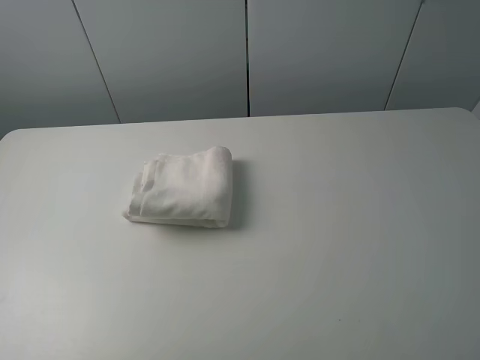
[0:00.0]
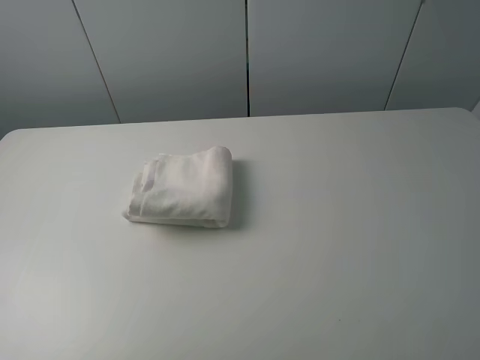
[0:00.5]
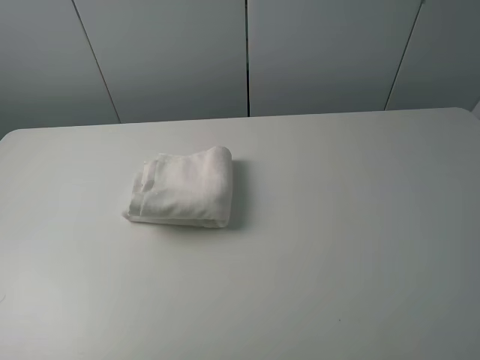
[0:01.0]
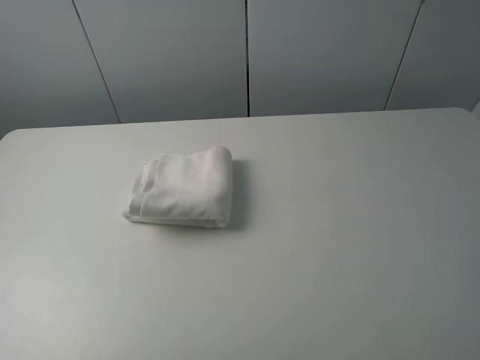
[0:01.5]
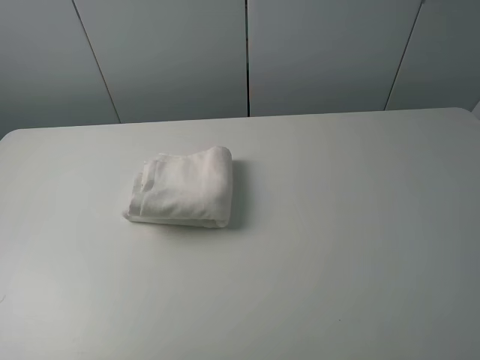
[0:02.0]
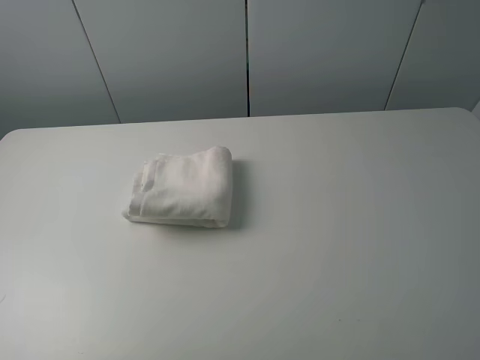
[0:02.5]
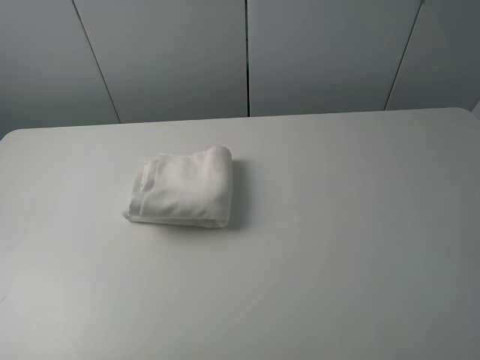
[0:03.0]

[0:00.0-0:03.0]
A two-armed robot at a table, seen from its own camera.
Task of the whole recording: fold the towels on the table.
0:00.0 to 0:03.0: The two grippers keep their place.

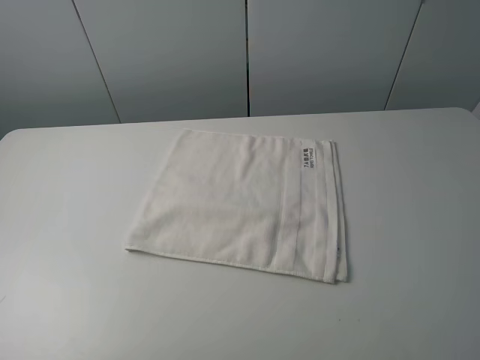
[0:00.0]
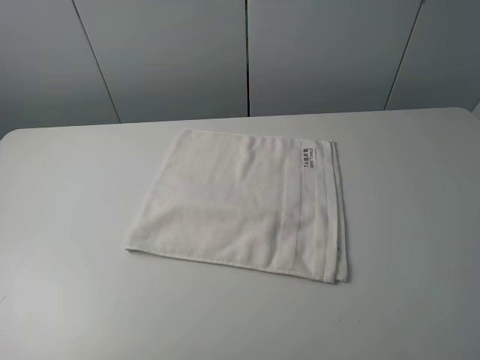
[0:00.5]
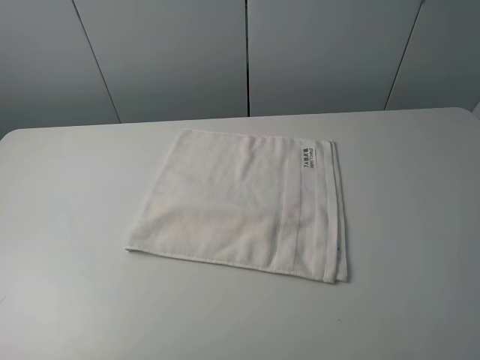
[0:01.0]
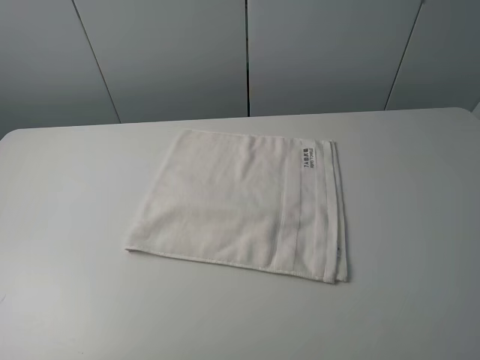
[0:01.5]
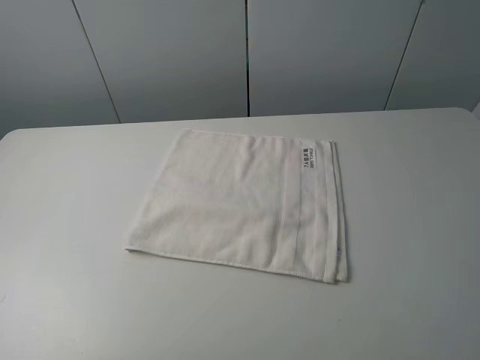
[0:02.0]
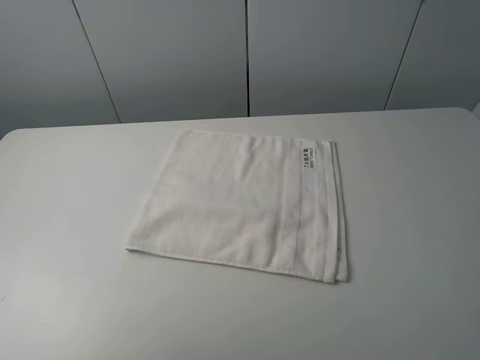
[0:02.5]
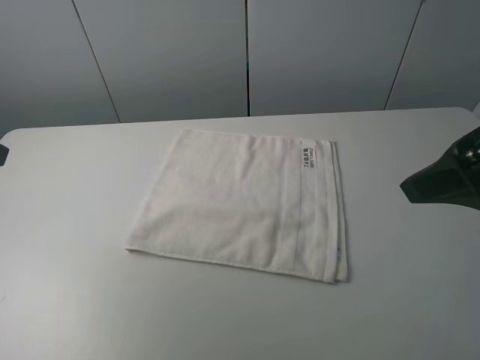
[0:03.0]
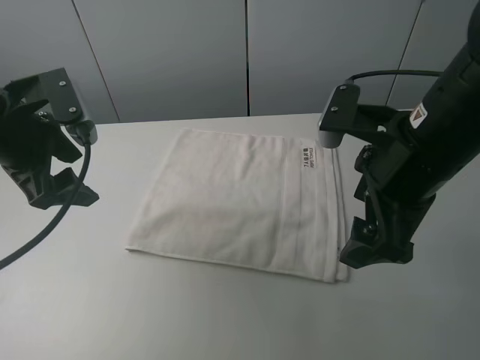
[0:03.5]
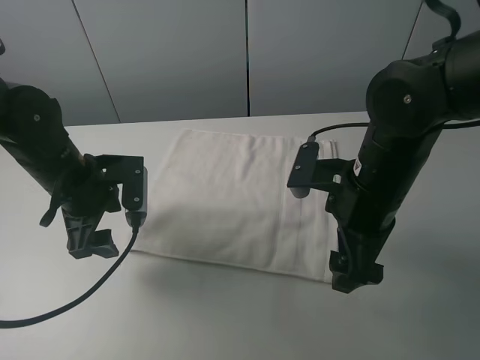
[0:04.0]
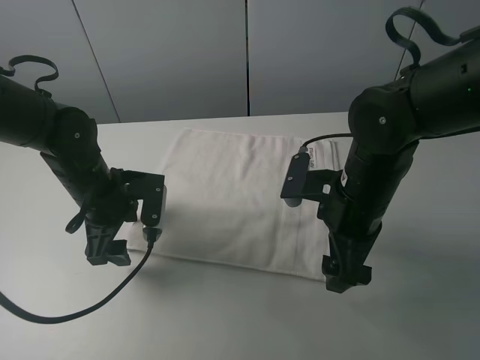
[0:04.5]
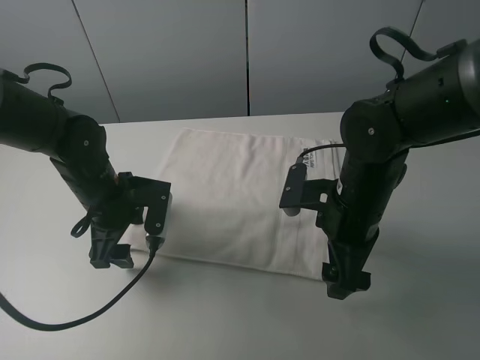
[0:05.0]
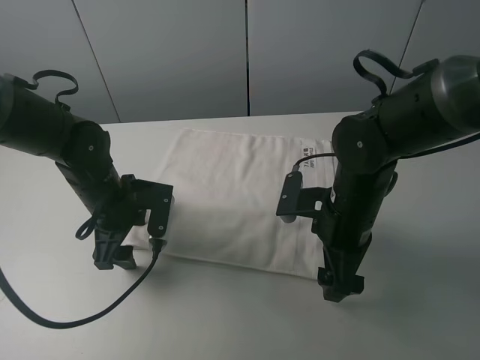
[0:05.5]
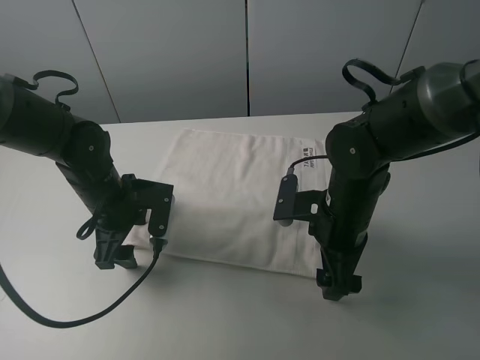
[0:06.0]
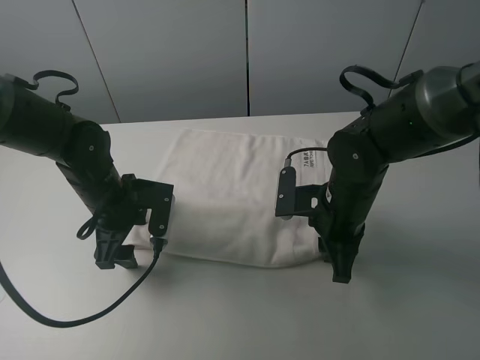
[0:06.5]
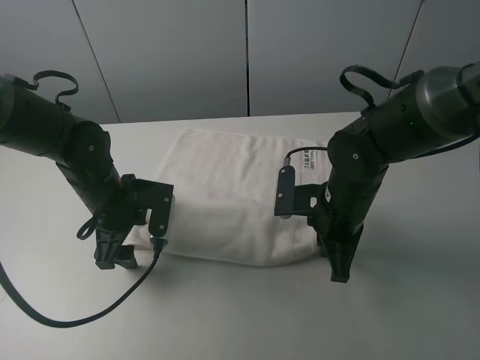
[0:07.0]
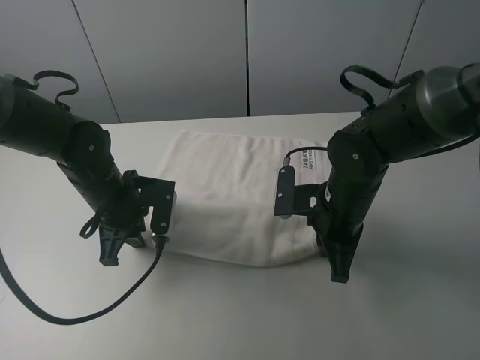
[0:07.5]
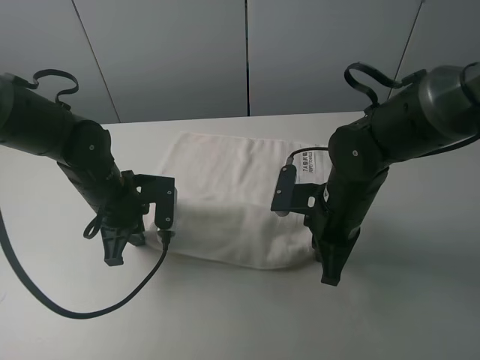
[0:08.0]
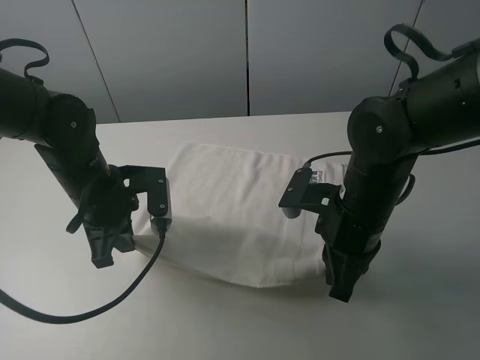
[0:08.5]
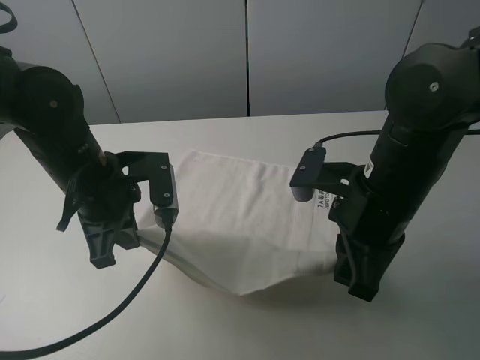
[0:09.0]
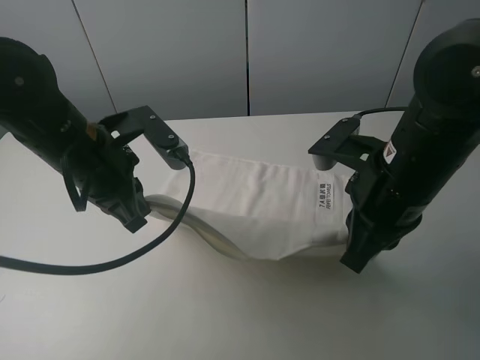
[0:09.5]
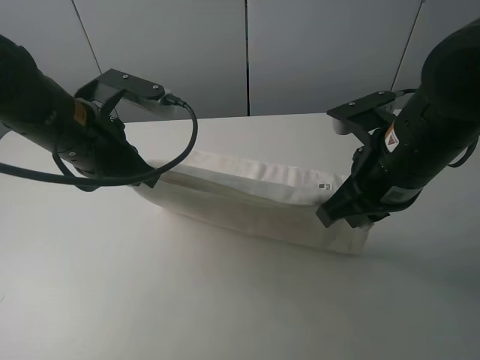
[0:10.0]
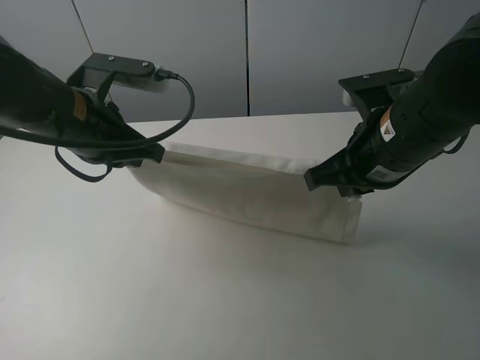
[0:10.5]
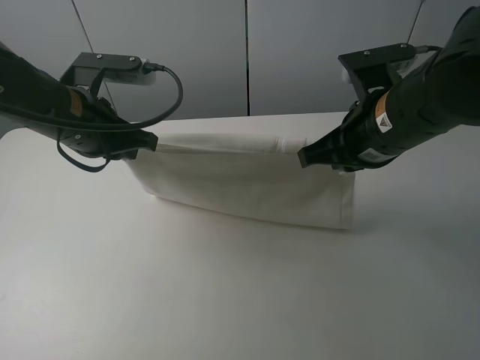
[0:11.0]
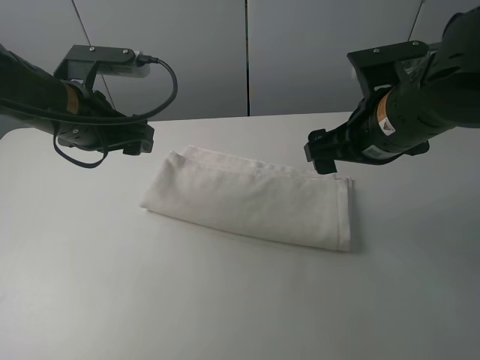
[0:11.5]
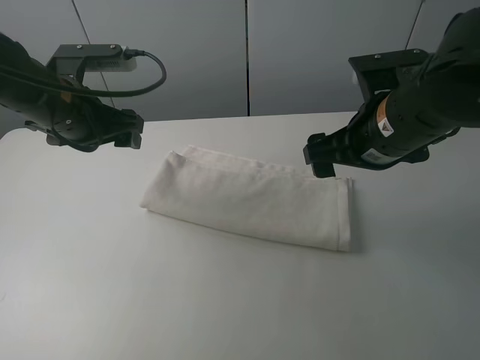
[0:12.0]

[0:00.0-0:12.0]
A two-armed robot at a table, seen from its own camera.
Task of the whole recording: fold the towels on the table.
Step, 0:00.0 to 0:06.5: Grasp the white towel with the right gripper.
Step, 0:07.0 to 0:07.5: Grasp the white towel with the left gripper.
Step, 0:08.0 to 0:11.0: Fold the white towel upwards with the right gripper.
0:02.0 to 0:04.0: The left gripper goes approximately 35 cm forward, to the right and downward. Meanwhile the right gripper goes approximately 30 cm forward, to the left and downward.
0:04.0 to 0:06.0: The left gripper moves roughly 5 cm; the right gripper is displaced downward by approximately 5 cm.
0:06.0 to 0:08.0: The left gripper closes up; the right gripper closes.
0:08.0 to 0:10.0: The two grippers go roughly 10 cm upward.
0:10.0 to 0:12.0: The left gripper is displaced forward by some 5 cm, and opens up; the right gripper opens its fingers.

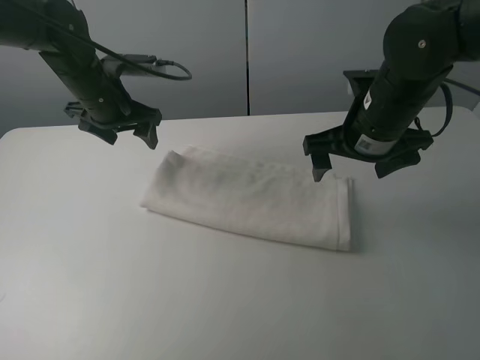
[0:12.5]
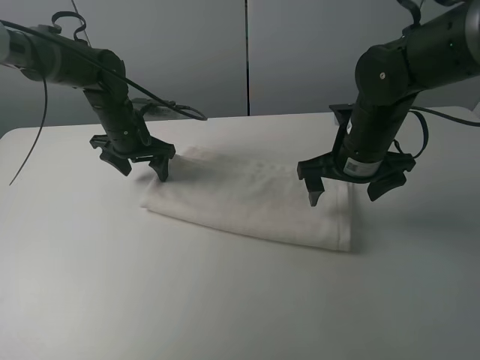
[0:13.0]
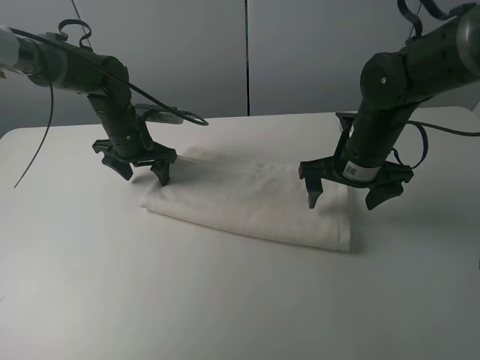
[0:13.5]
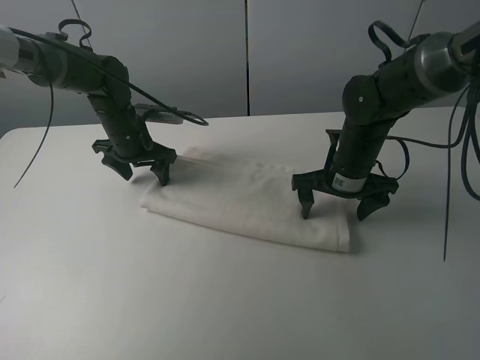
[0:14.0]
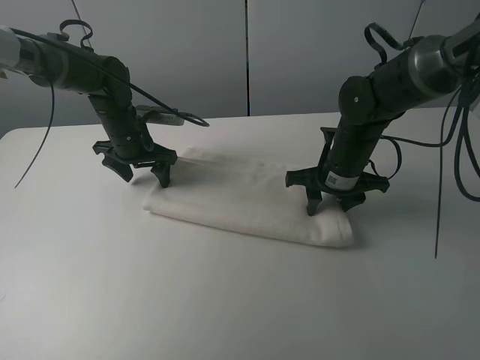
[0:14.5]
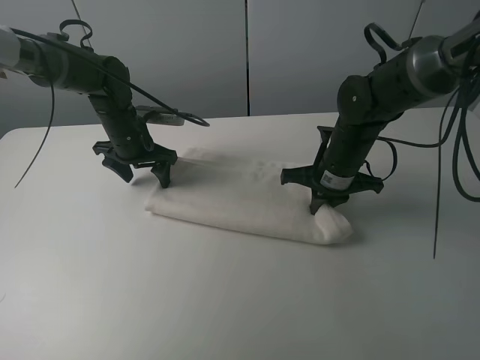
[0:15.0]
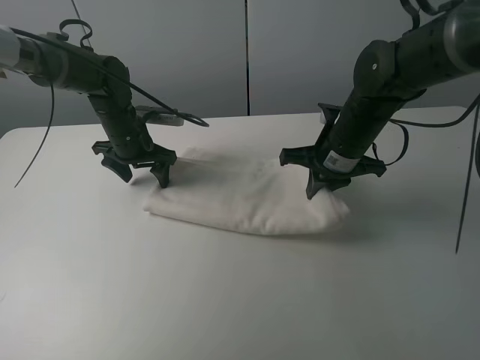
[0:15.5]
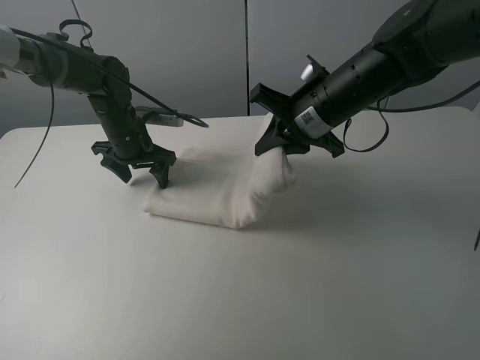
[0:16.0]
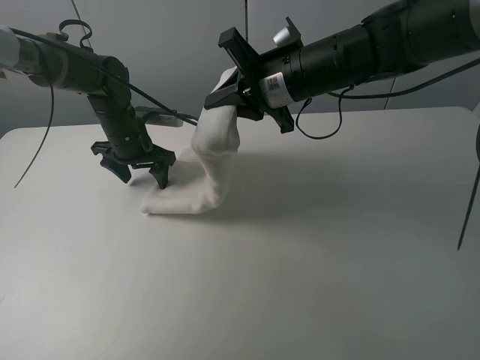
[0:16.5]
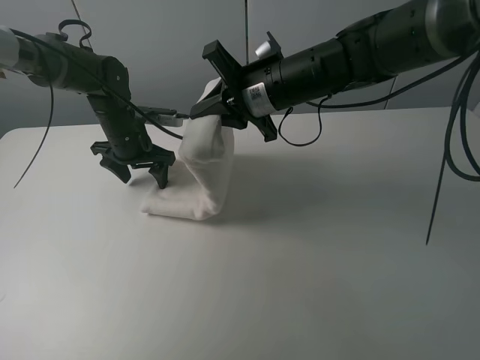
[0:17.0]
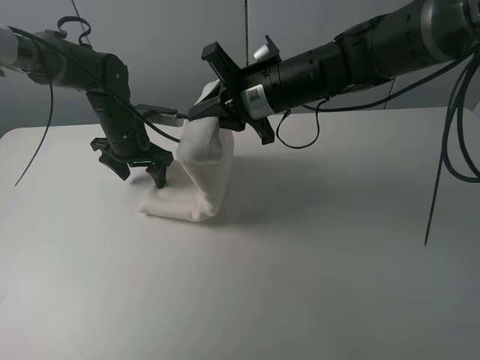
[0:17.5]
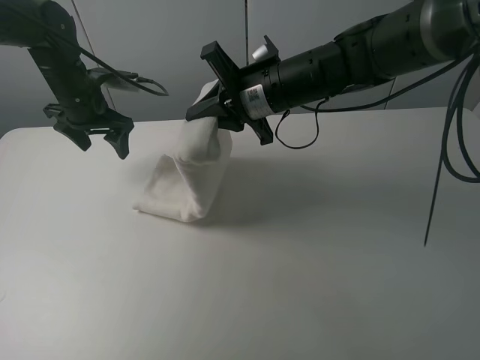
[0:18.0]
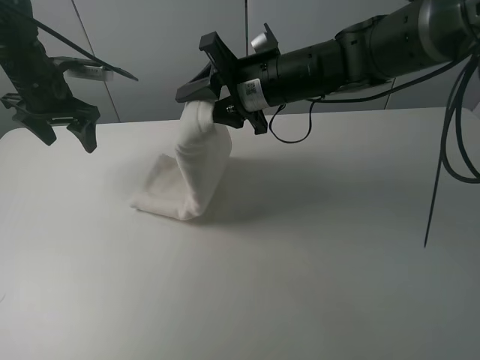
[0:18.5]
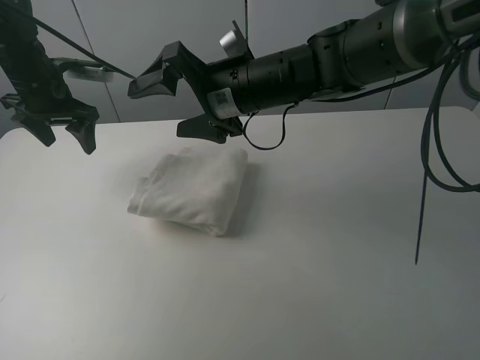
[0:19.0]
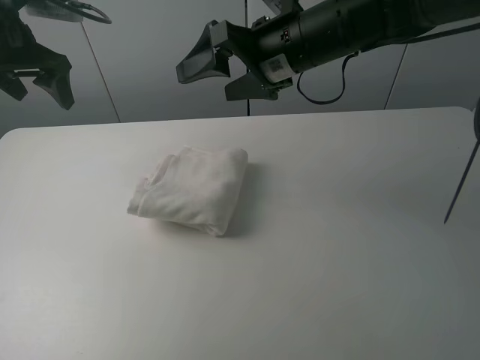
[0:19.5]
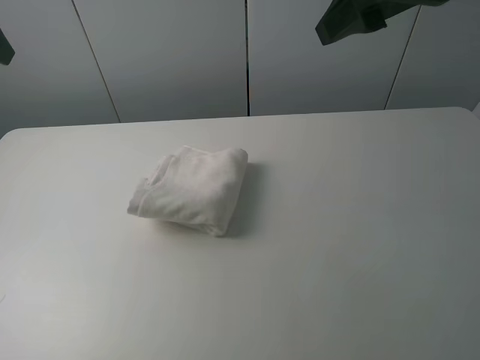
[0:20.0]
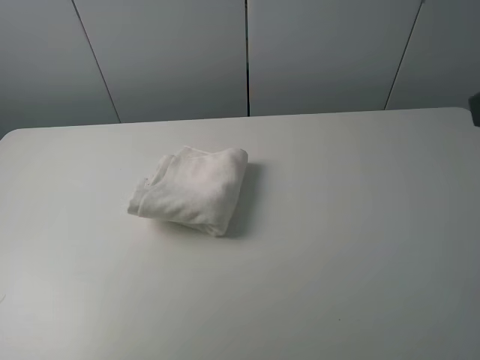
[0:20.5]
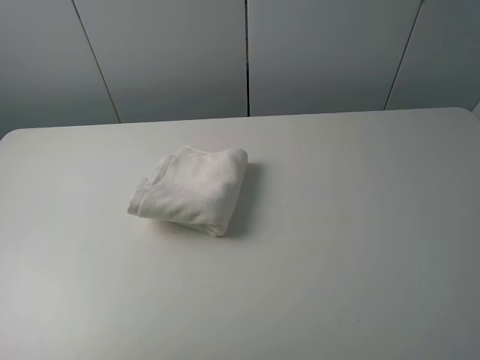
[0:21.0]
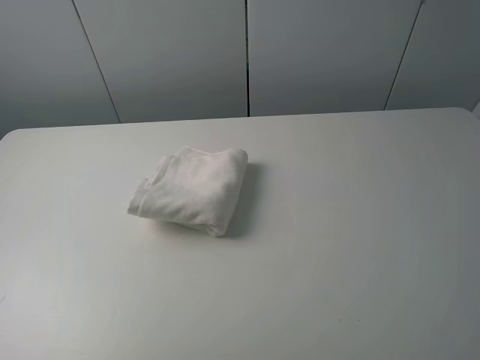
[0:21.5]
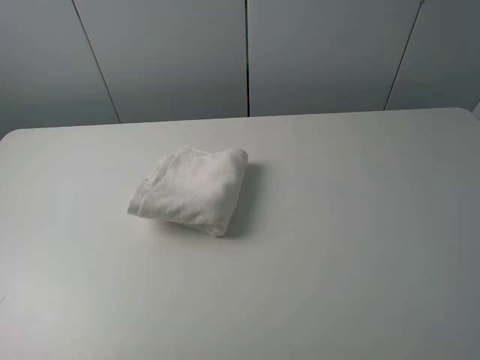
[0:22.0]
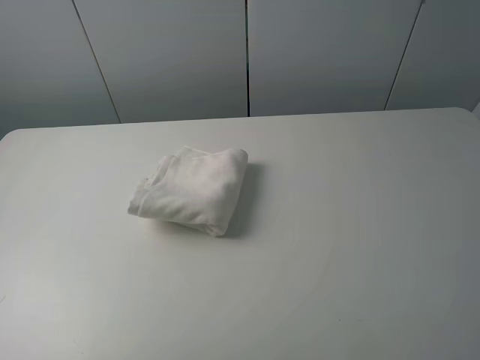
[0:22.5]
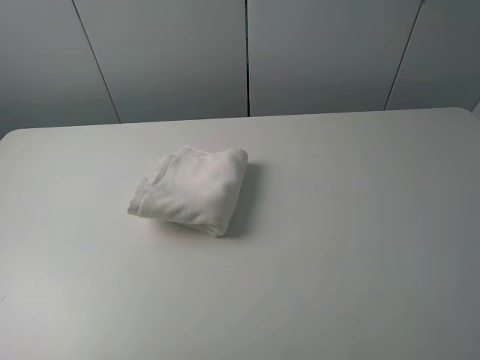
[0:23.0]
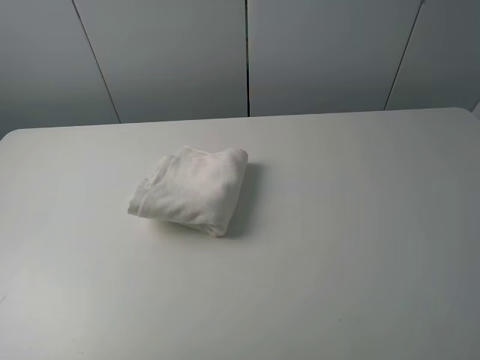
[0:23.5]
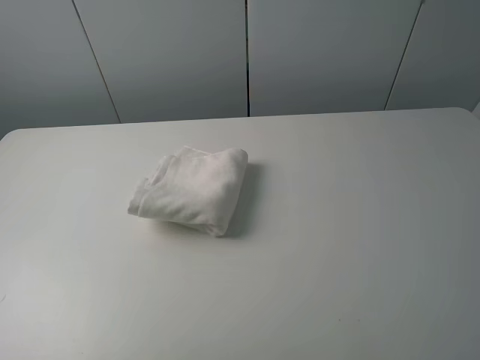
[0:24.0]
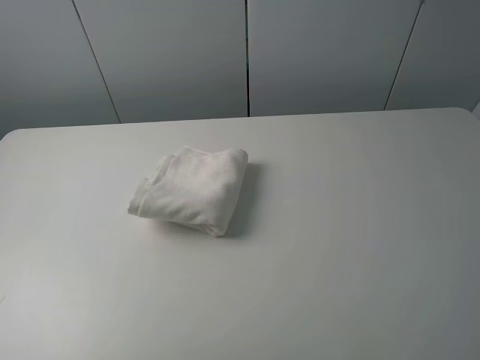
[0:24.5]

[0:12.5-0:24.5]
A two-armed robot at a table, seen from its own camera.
Task of the whole recording: fold the towels on the table.
Step, 0:13.5 to 0:18.5: Fold the white towel from right to left with right gripper.
0:12.5 to 0:14.5: The grippers both shift downward by some 10 cm. The right gripper closes up.
0:14.5 to 0:16.5: The right gripper moves upward and to the left, approximately 15 cm.
0:16.5 to 0:18.5: The right gripper opens up, while the left gripper shifts some 15 cm upward and to the left.
0:18.5 to 0:20.5: The right gripper is displaced backward, to the right and upward by approximately 35 cm, and opens its fingers, while the left gripper moves backward and upward, about 35 cm.
0:22.5 to 0:24.5: Both grippers stay put.
